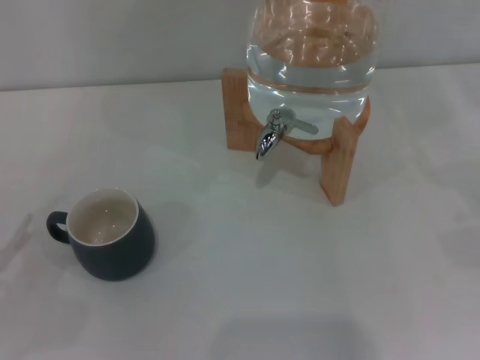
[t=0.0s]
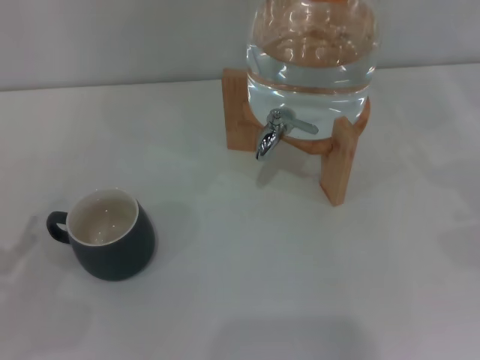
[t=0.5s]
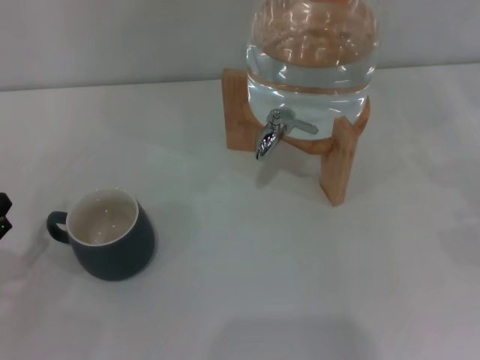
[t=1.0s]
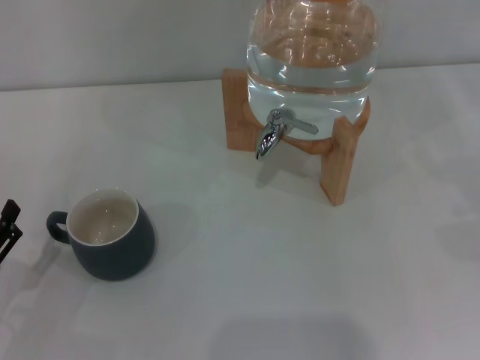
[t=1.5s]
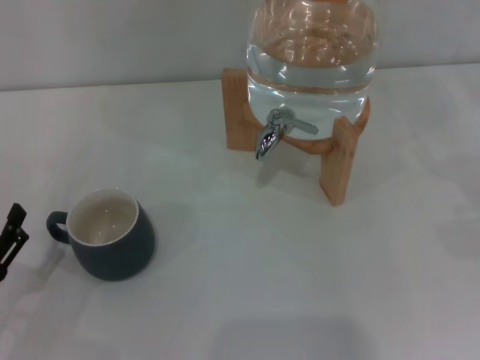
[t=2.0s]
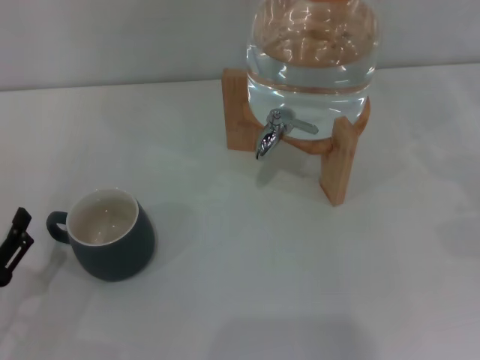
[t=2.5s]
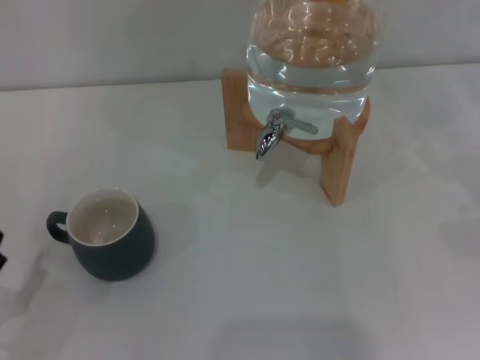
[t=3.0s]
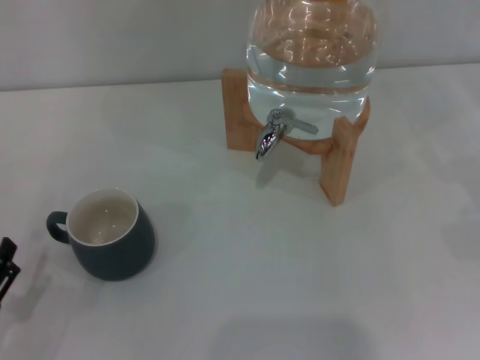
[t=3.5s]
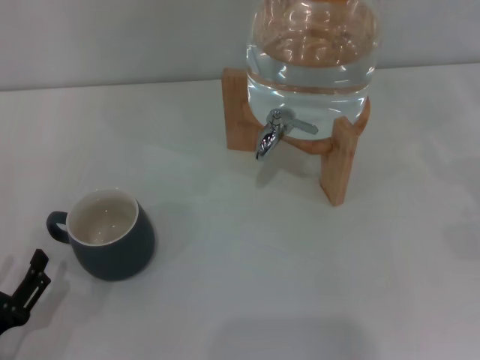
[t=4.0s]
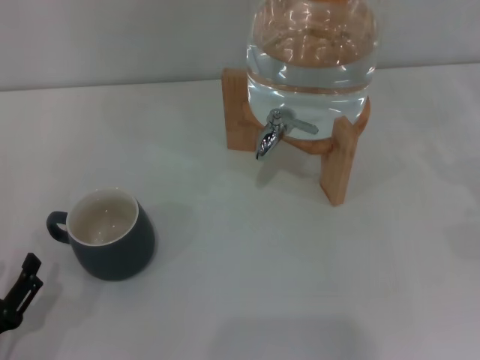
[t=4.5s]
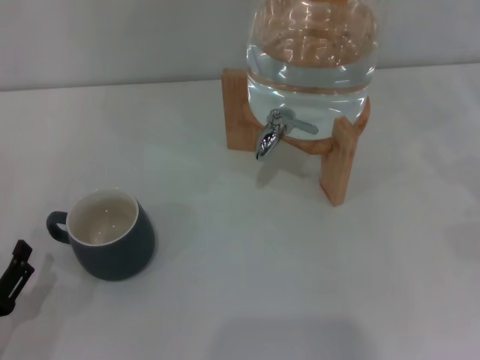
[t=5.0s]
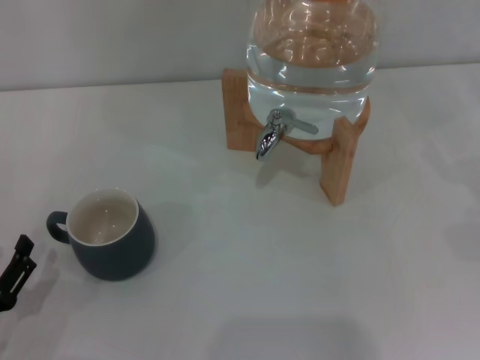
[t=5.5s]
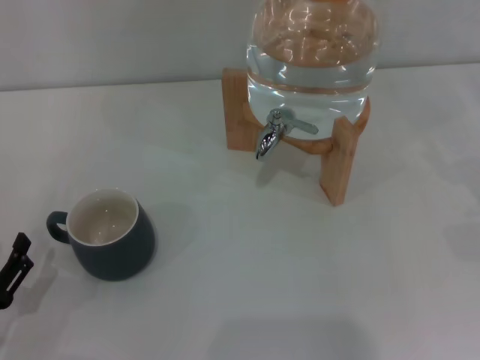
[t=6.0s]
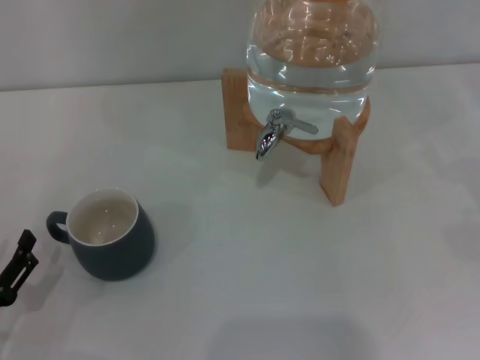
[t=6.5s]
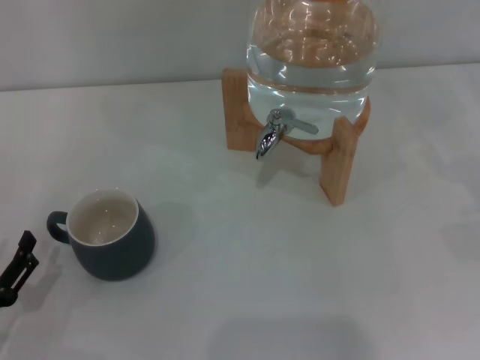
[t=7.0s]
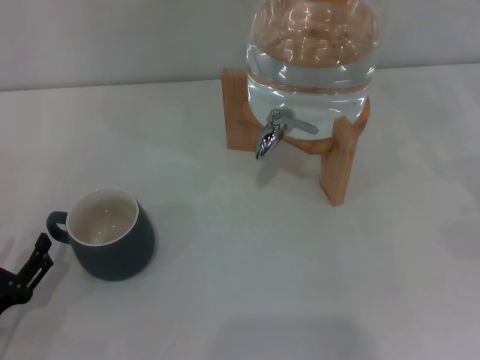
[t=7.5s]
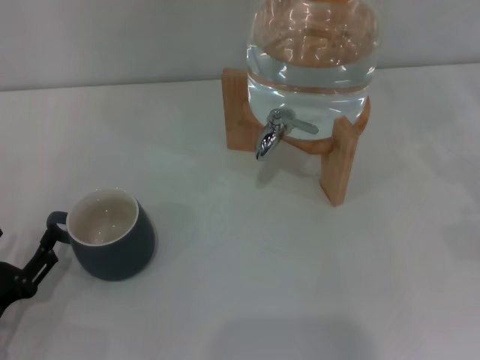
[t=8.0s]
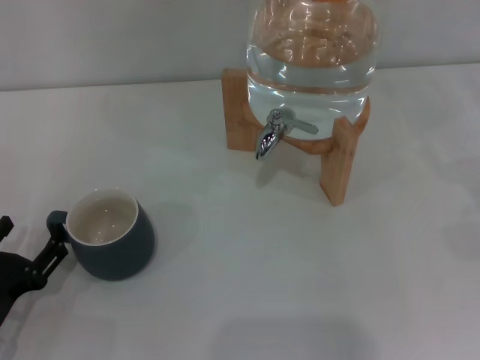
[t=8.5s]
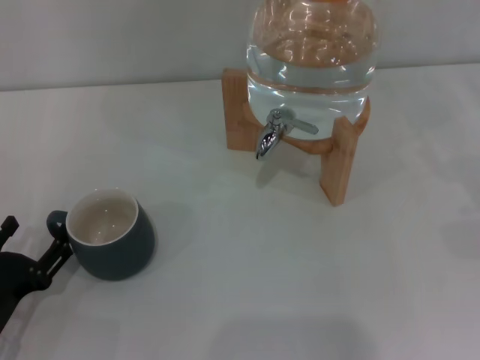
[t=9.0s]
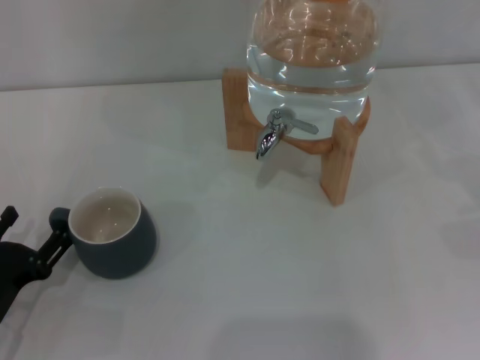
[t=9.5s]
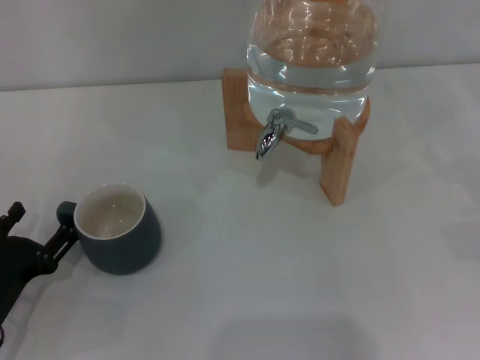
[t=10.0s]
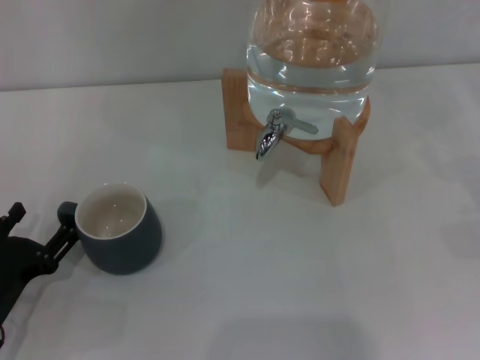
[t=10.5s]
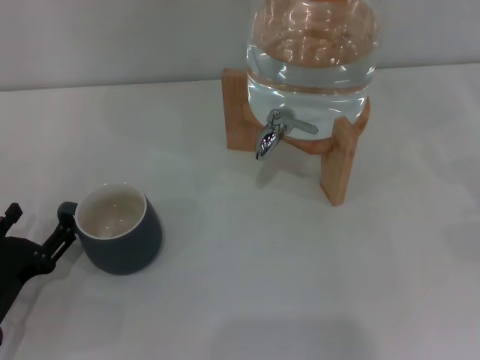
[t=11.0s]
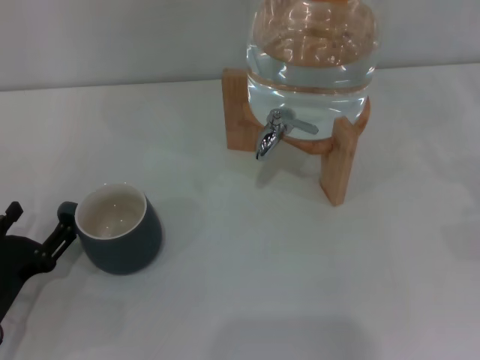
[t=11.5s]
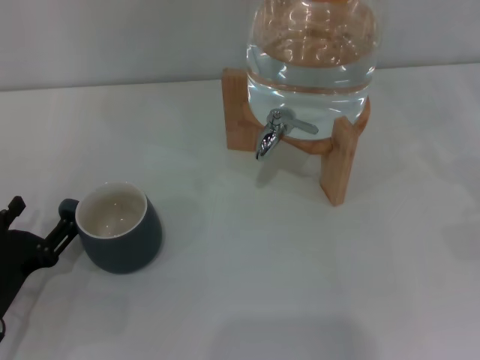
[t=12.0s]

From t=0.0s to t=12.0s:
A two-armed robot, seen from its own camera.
Task of the whole recording: the left gripper pick up the black cup and place it horizontally under the faucet, the right gripper turn on the faucet to fill the cup, and then turn off the faucet.
From t=0.0s to t=2.0s: The left gripper goes roughly 5 cm to the right.
From t=2.0s to t=10.0s: The grippers move only a little.
From t=10.0s to t=12.0s: Both grippers stay put.

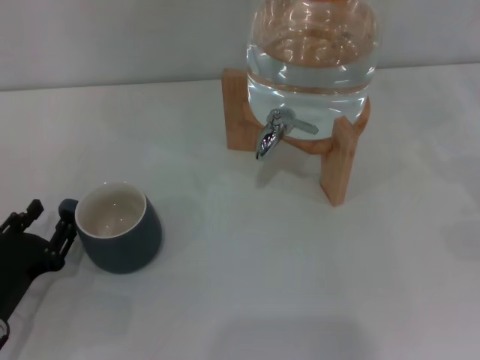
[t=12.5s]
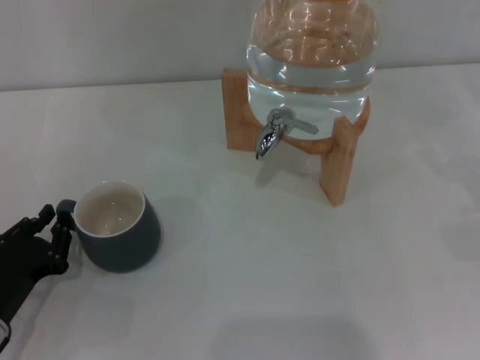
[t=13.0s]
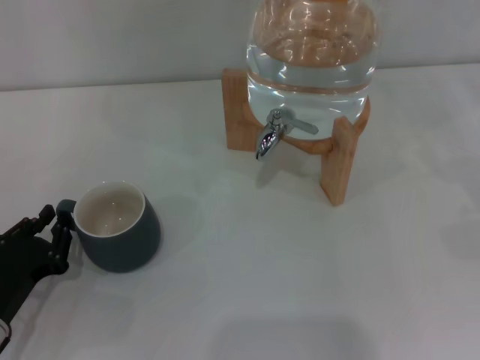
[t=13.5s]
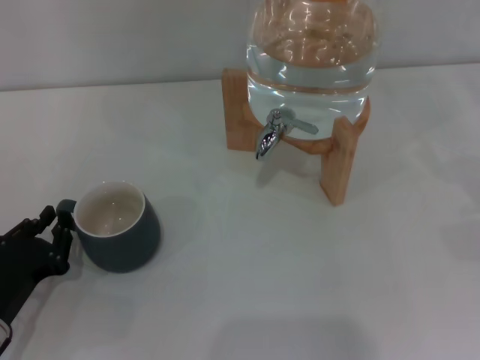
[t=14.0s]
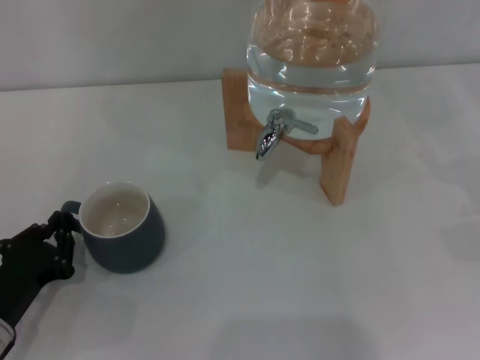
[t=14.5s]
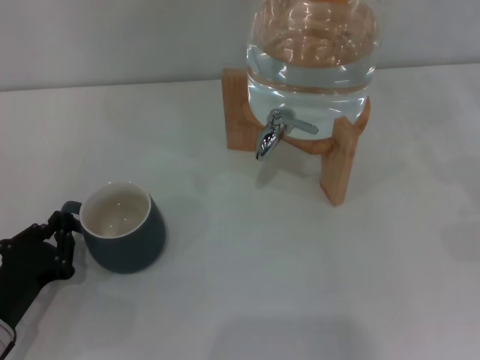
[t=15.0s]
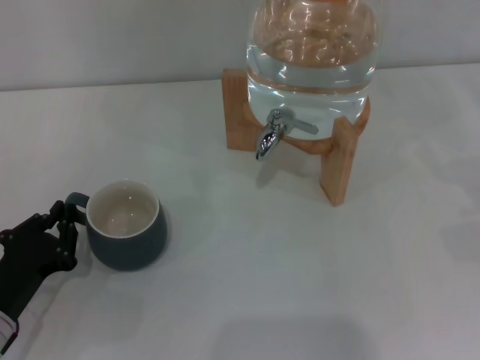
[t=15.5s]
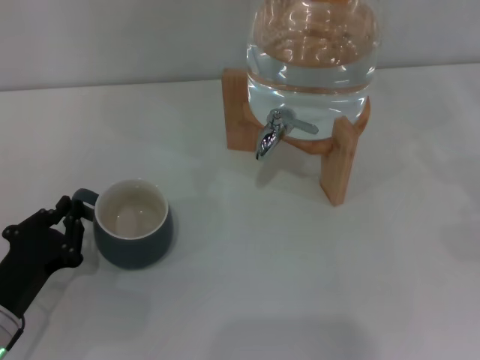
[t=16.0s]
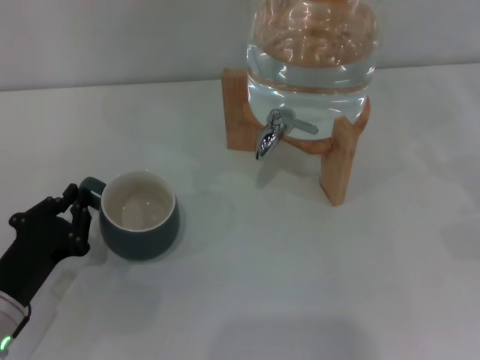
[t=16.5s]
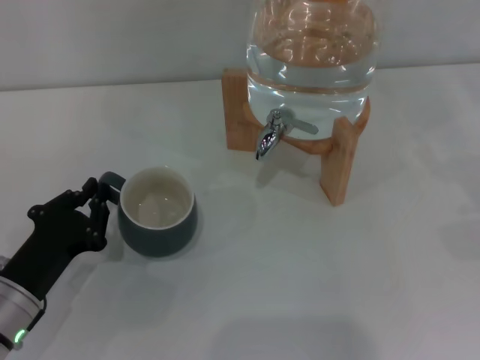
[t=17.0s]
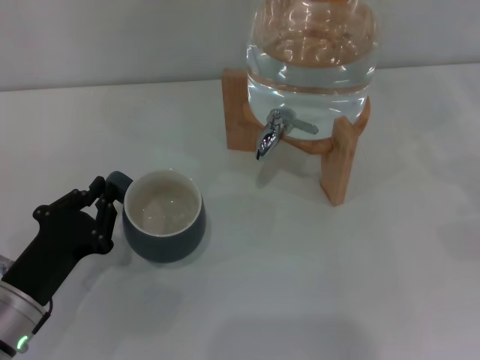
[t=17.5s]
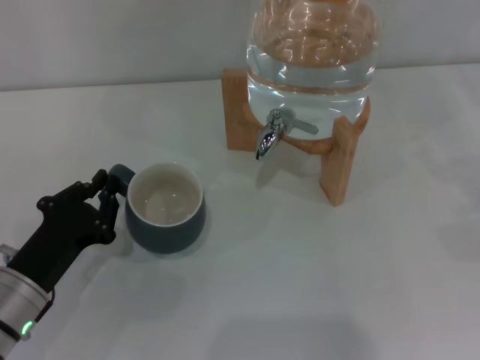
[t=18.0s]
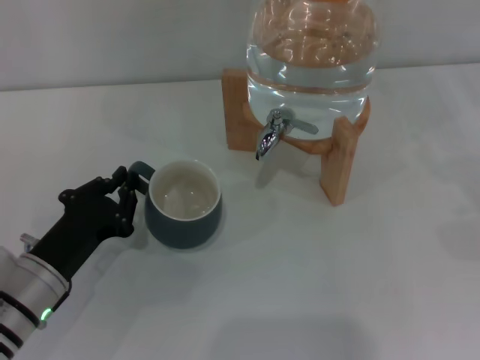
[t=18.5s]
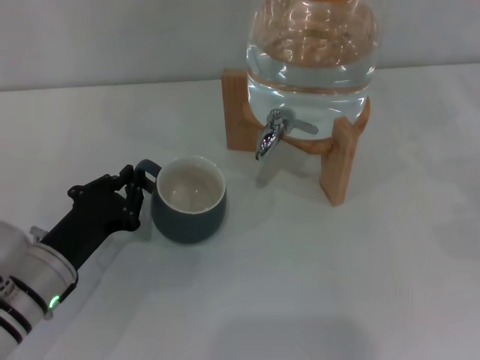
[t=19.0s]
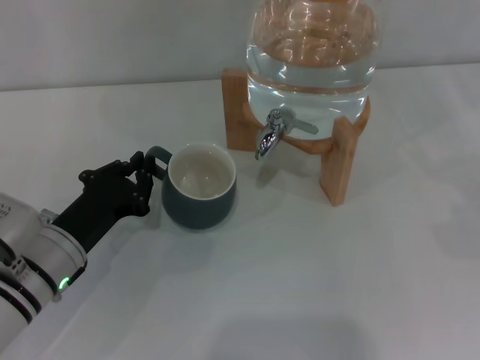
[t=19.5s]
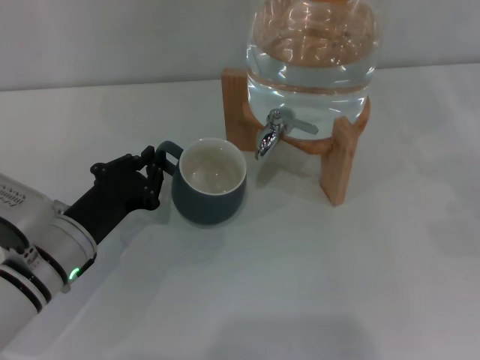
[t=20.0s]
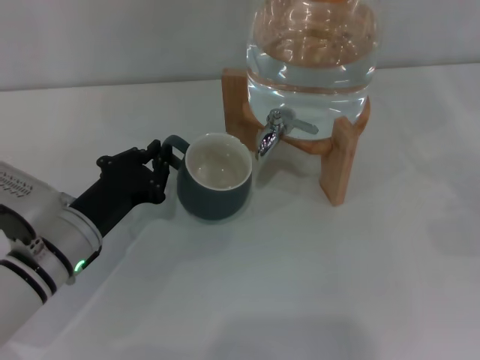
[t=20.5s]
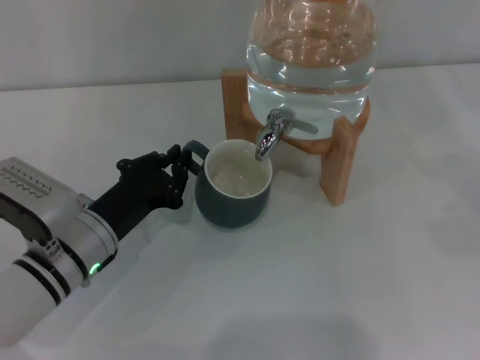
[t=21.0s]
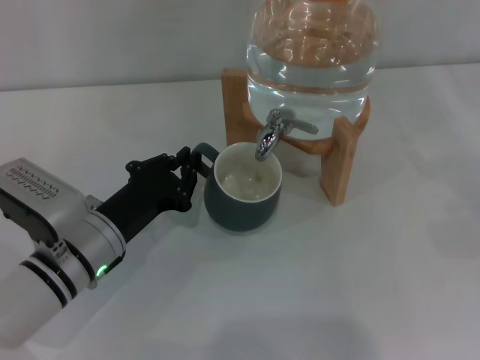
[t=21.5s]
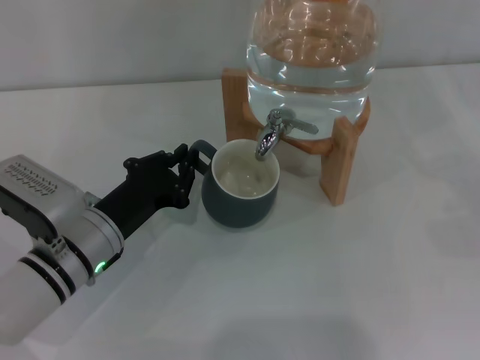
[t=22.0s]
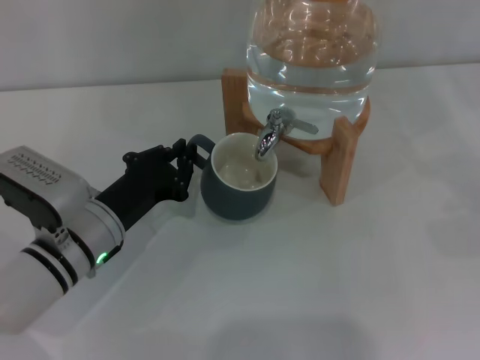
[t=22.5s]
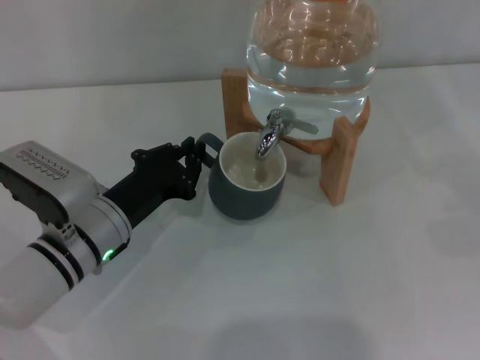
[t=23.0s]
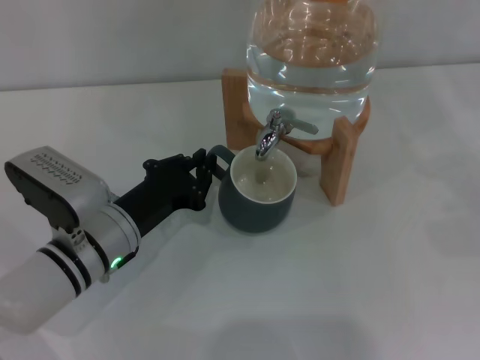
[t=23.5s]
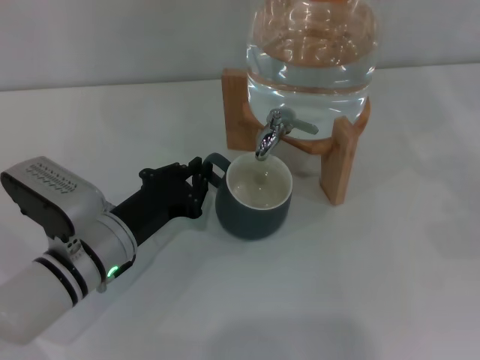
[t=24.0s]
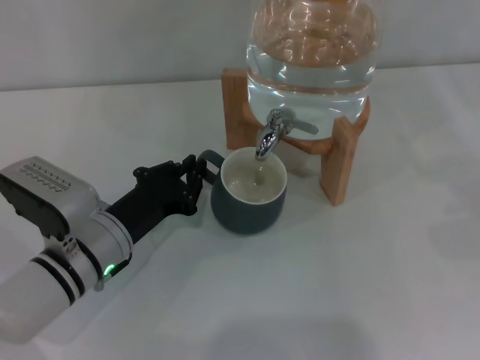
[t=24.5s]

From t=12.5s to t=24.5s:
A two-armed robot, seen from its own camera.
Task of the whole recording: the left gripper pick up the black cup and place it horizontally under the faucet, the right gripper turn on the faucet to fill the cup, and then turn off the faucet.
From t=12.5s to t=14.5s: The left gripper closes up.
From t=14.5s to t=16.5s: The grippers stay close to where they were, moving slightly.
From t=16.5s to t=18.5s: There are only small adjustments of the grippers.
From t=18.5s to t=20.5s: The left gripper shifts by approximately 5 cm.
From t=20.5s to t=24.5s: The grippers stay close to where they were, moving slightly.

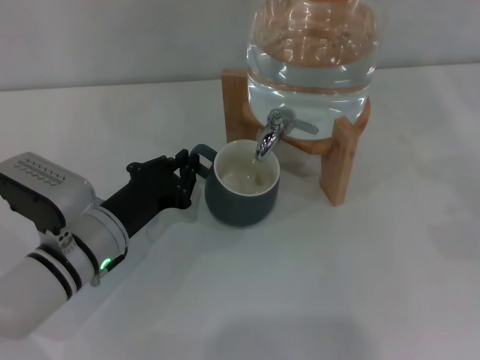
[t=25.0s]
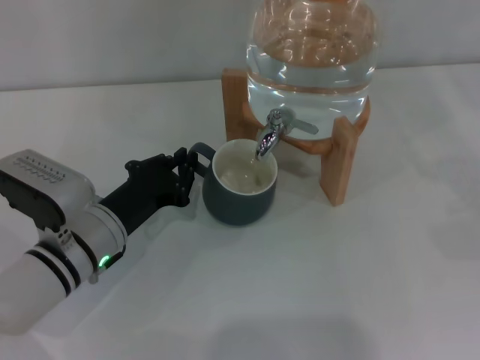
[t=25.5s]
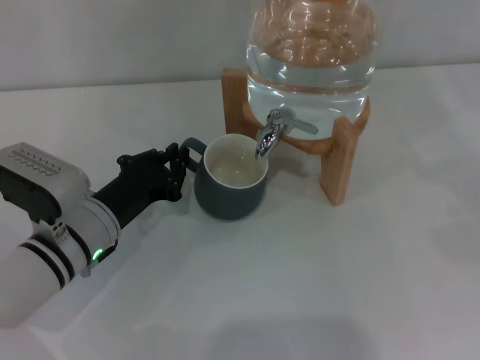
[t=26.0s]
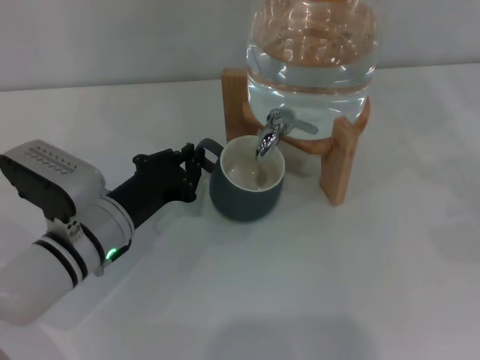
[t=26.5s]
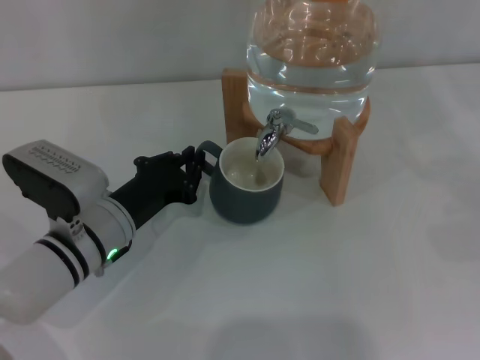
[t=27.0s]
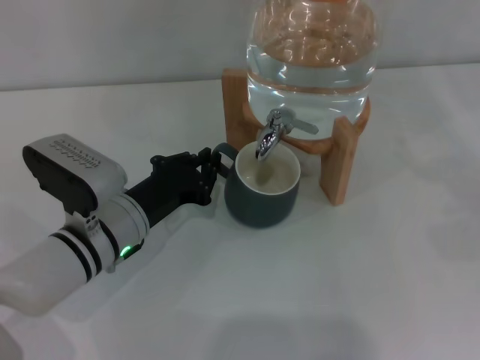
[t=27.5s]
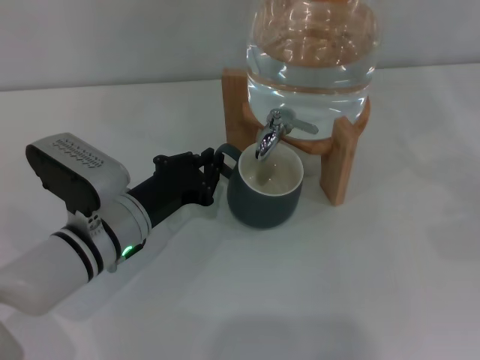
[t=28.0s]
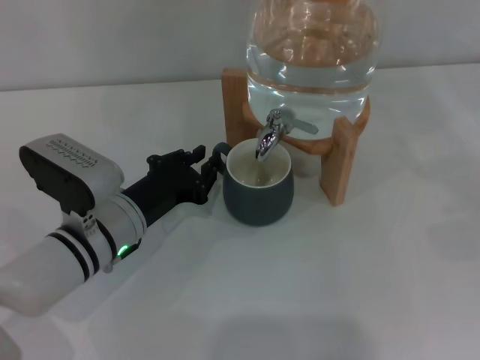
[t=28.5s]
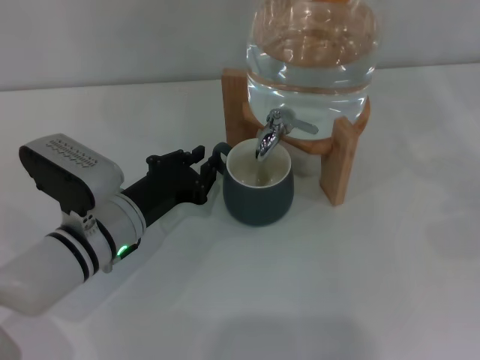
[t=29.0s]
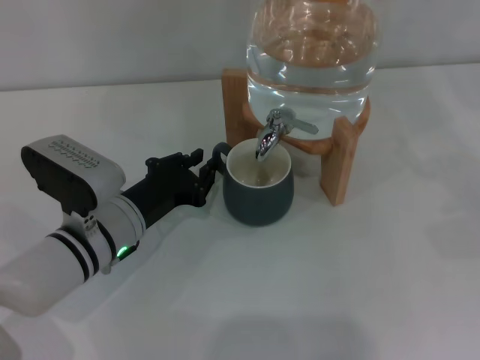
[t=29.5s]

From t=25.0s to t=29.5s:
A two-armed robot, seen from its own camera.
Task of the whole recording: the left gripper pick up the black cup and place it horizontally under the faucet, the right gripper turn on the faucet to fill the cup, and then turn off the faucet.
From t=25.0s to t=27.0s: Both grippers stay put.
From t=27.0s to t=29.5s: There are only small adjustments of the grippers.
